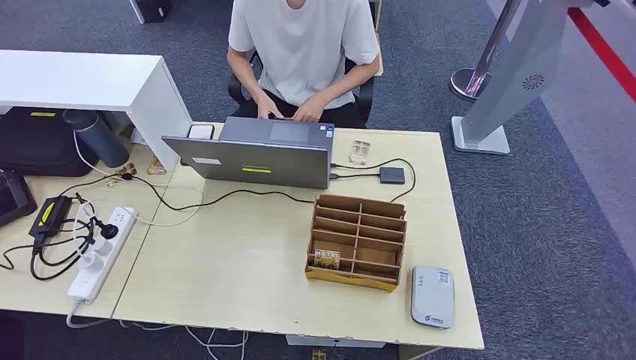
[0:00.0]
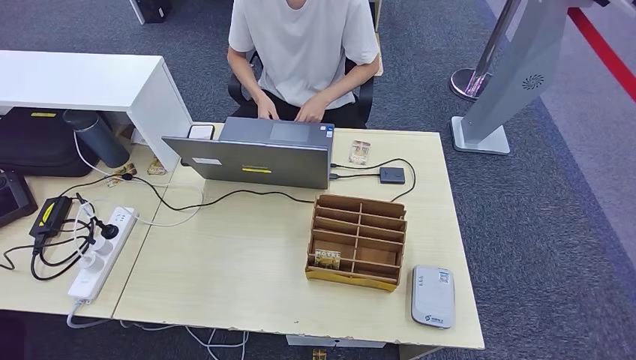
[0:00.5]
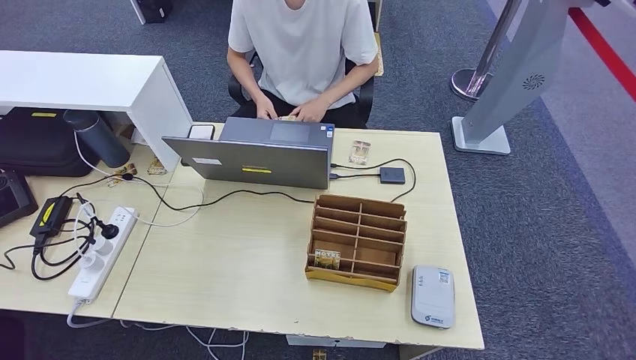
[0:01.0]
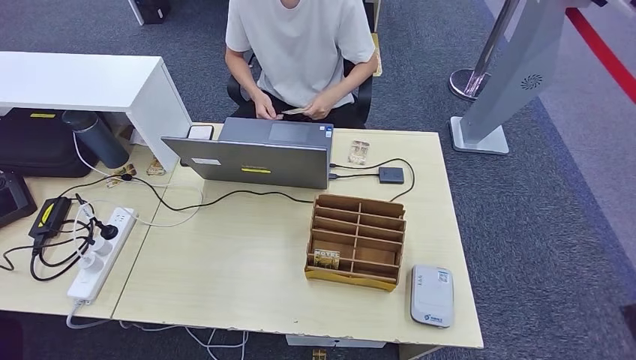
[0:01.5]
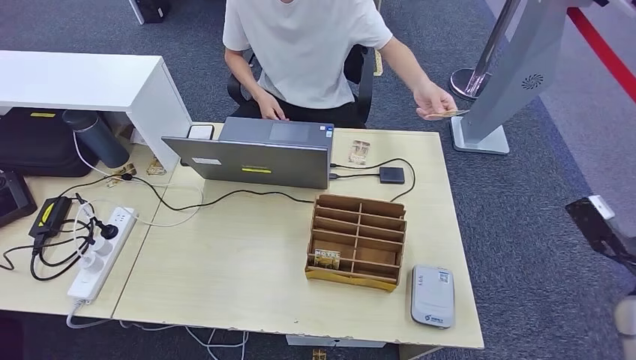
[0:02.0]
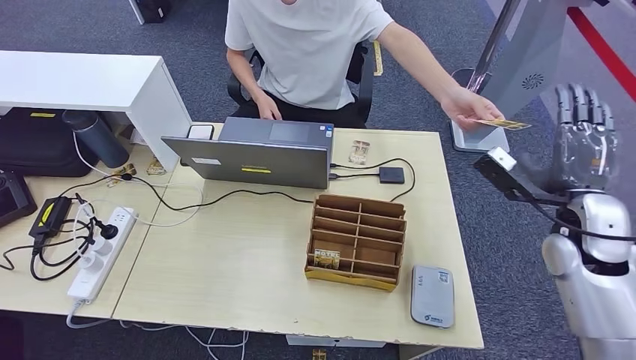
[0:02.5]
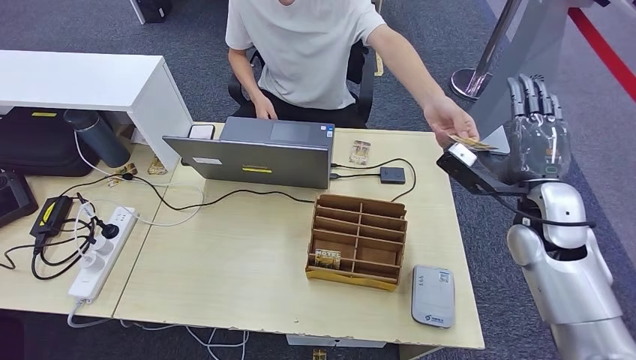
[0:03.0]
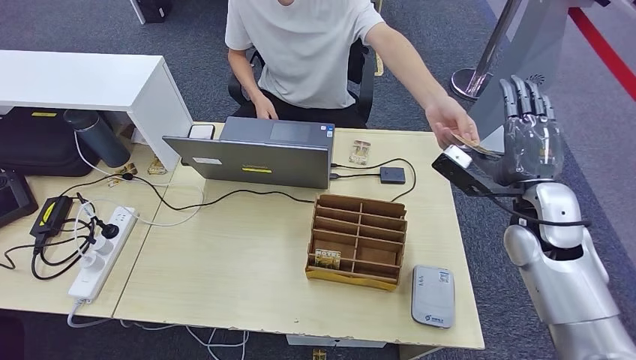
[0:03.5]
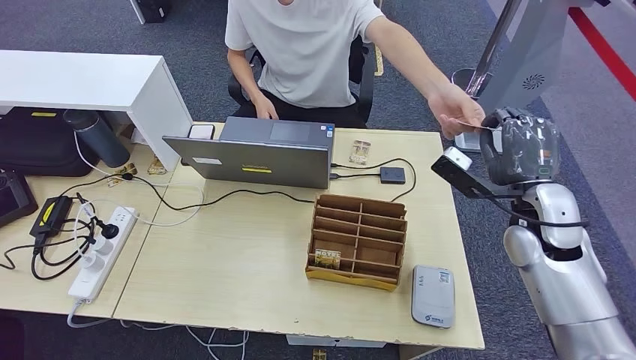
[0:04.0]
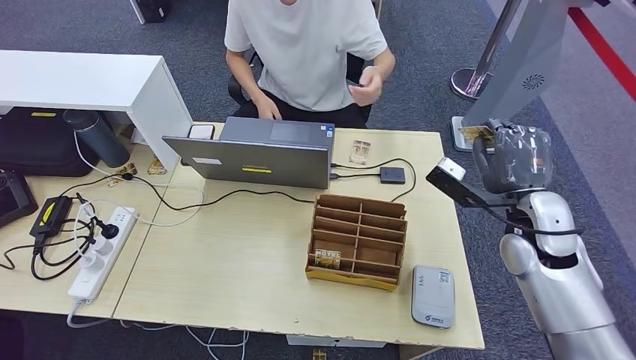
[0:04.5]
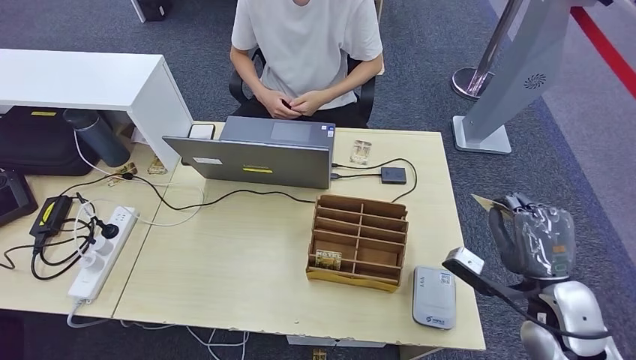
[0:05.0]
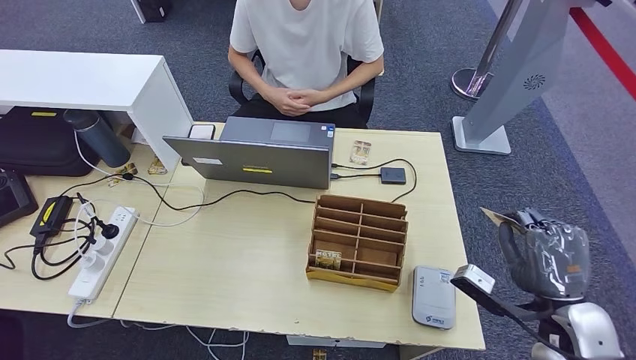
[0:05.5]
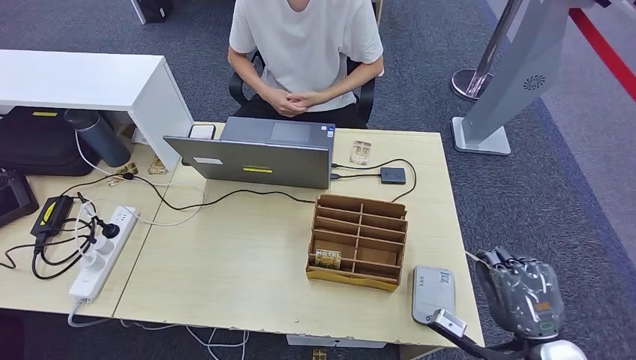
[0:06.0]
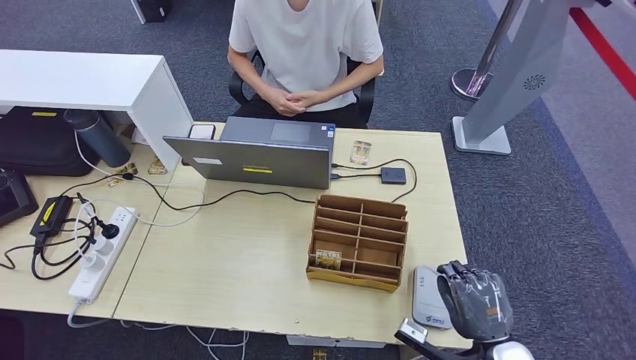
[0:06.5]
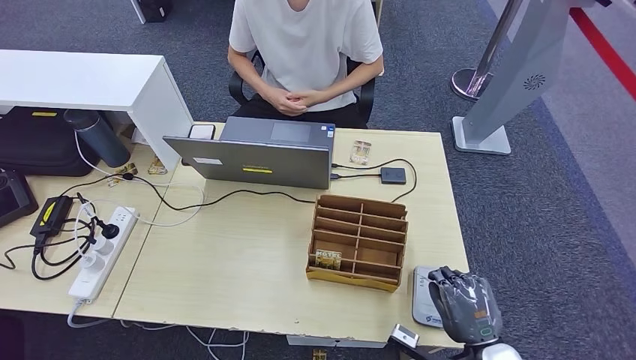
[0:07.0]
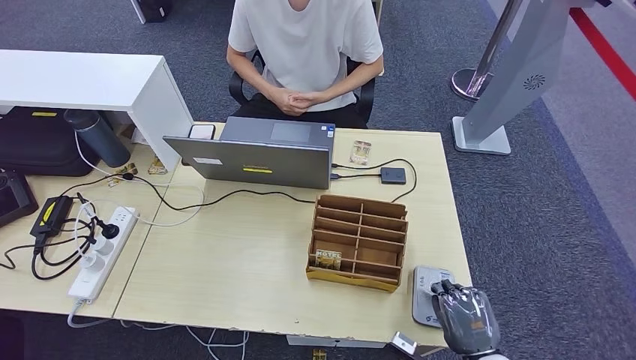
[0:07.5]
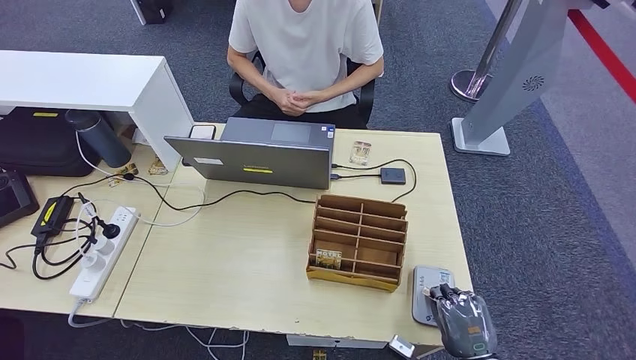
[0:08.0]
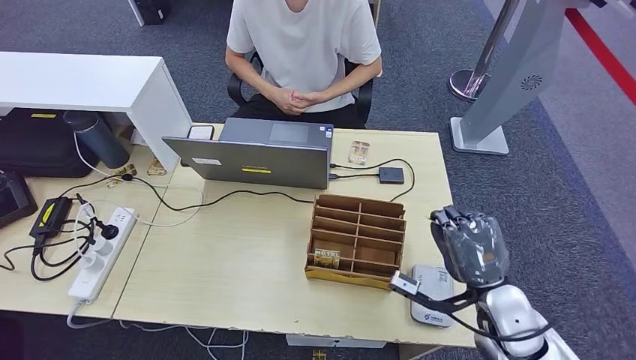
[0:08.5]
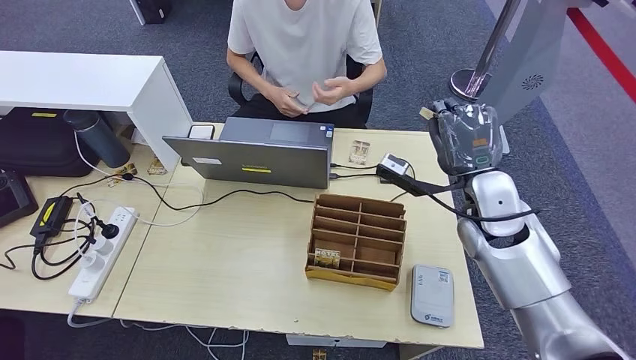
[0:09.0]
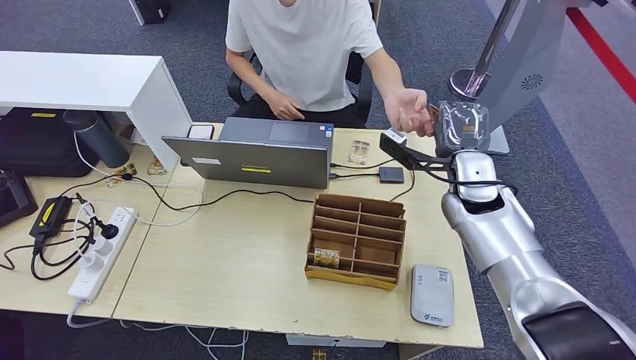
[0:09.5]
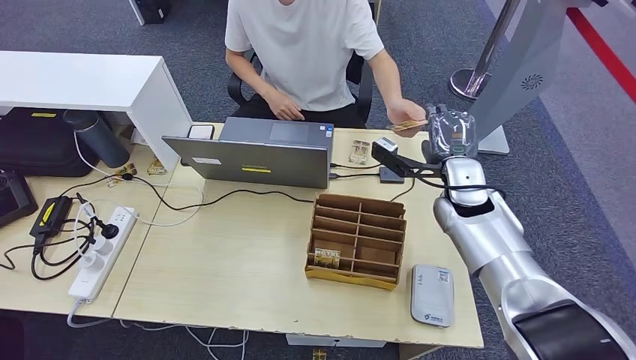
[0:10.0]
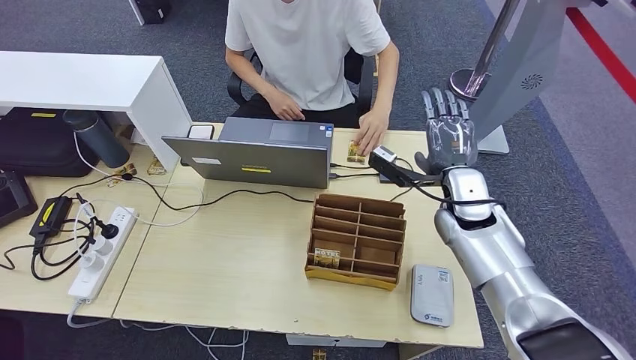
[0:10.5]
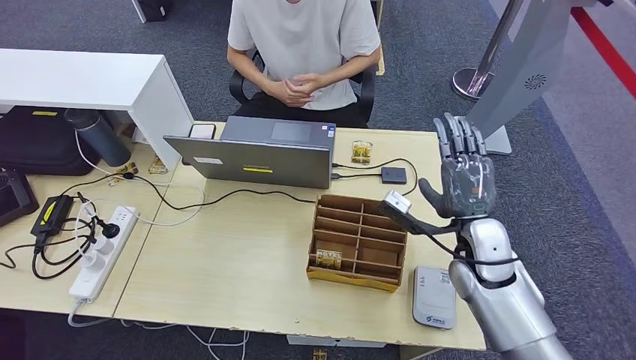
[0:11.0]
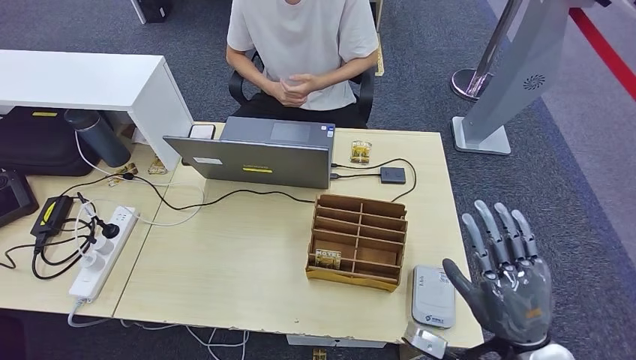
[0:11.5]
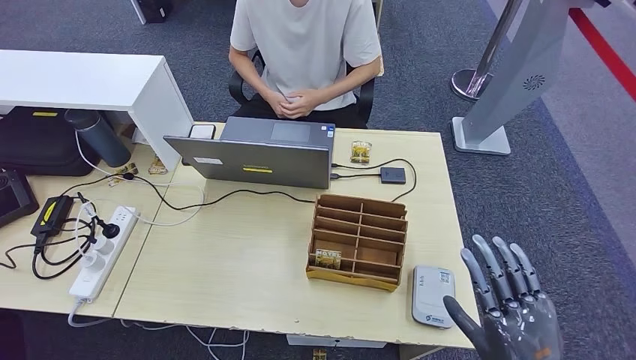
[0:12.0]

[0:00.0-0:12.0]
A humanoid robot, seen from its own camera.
Step, 0:00.0 to 0:03.5: Take the ID card from the person's hand.
Step, 0:04.0 to 0:08.0: Place the ID card on the card reader.
Step, 0:08.5 to 0:10.0: Hand the ID card to the person.
0:02.0 to 0:04.0: The right hand travels to the left and forward by about 20 cm.
0:04.0 to 0:06.0: The right hand is displaced backward and downward by approximately 20 cm.
0:06.0 to 0:08.0: The right hand heads downward, covering about 10 cm.
0:08.0 to 0:10.0: The right hand travels forward and upward by approximately 35 cm.
0:10.0 to 0:12.0: The right hand heads backward, covering approximately 30 cm.

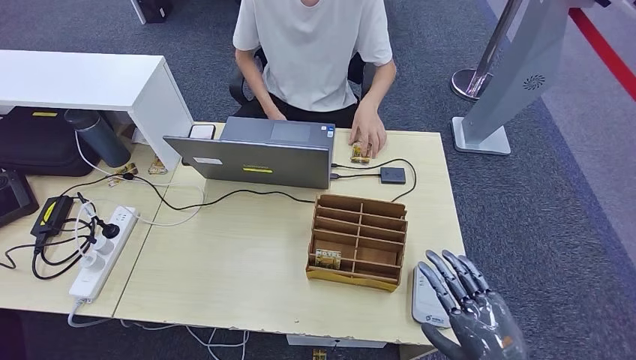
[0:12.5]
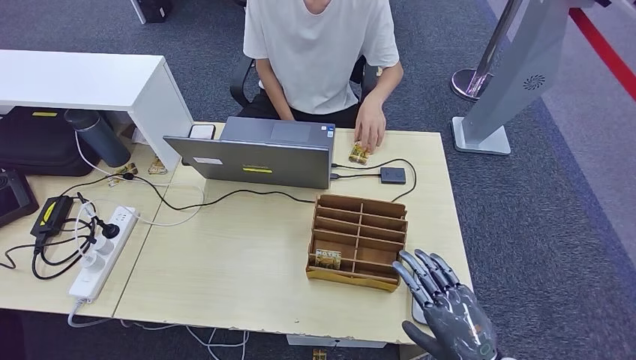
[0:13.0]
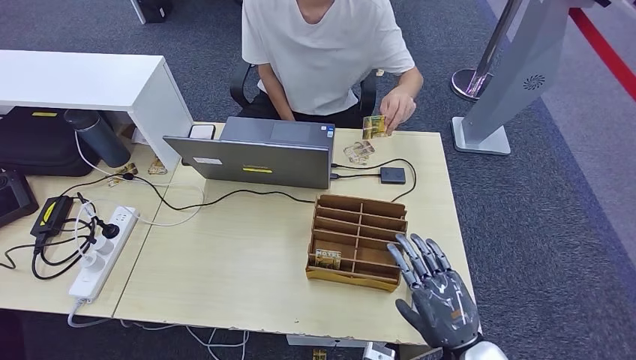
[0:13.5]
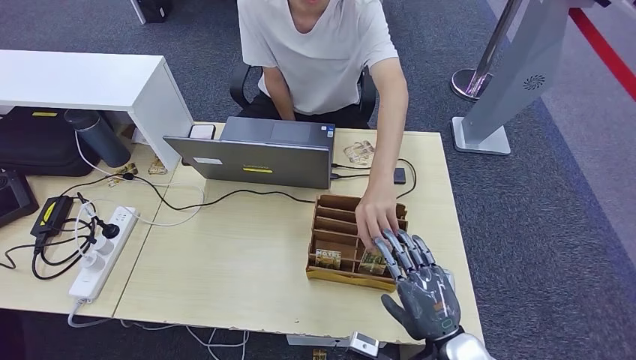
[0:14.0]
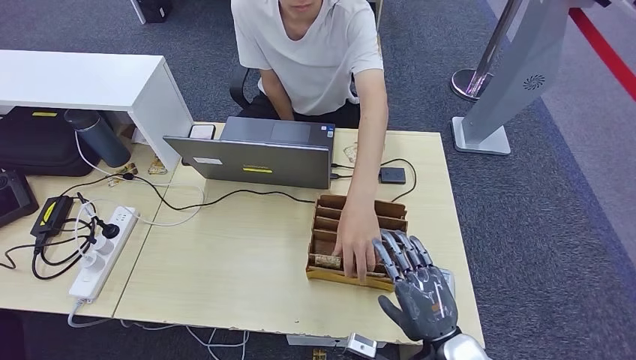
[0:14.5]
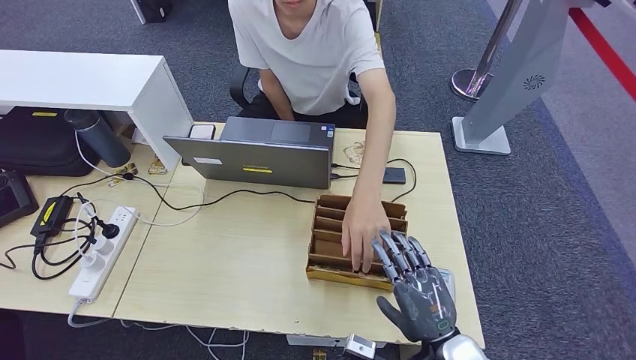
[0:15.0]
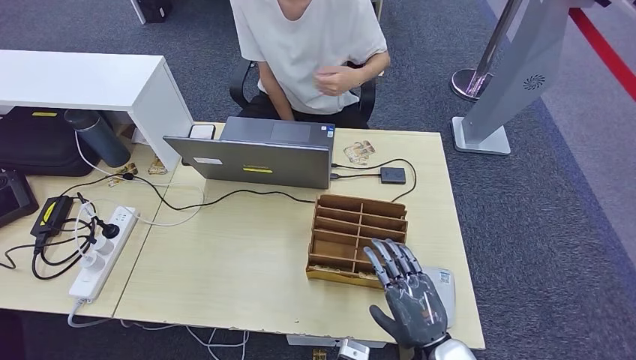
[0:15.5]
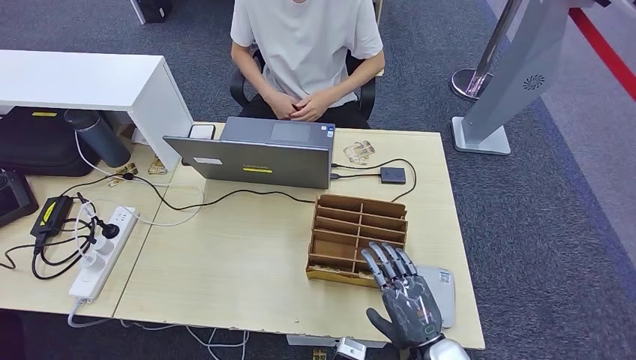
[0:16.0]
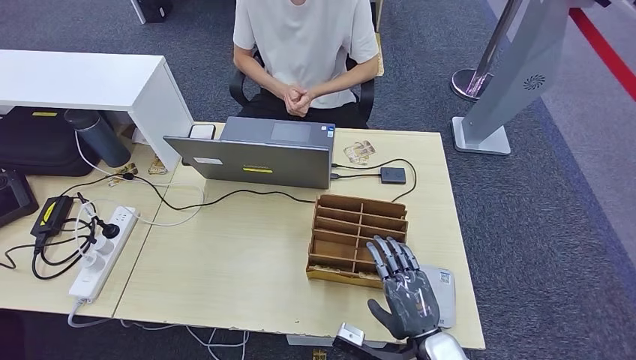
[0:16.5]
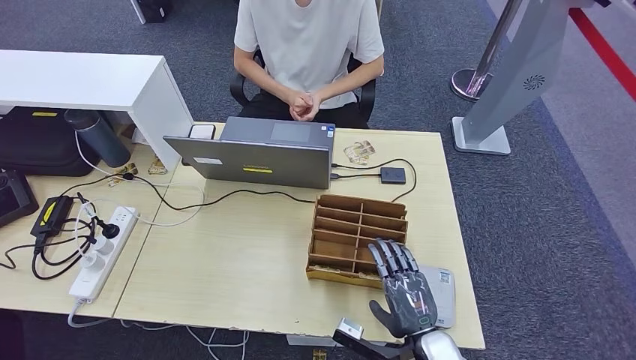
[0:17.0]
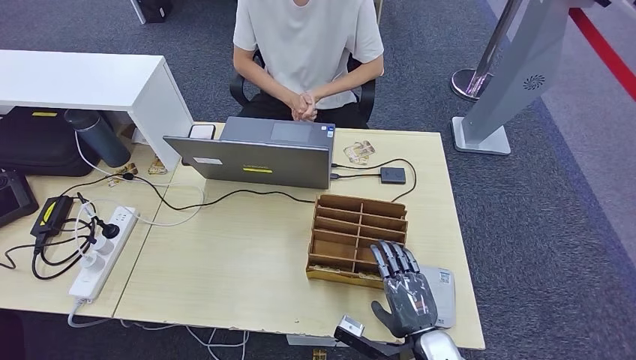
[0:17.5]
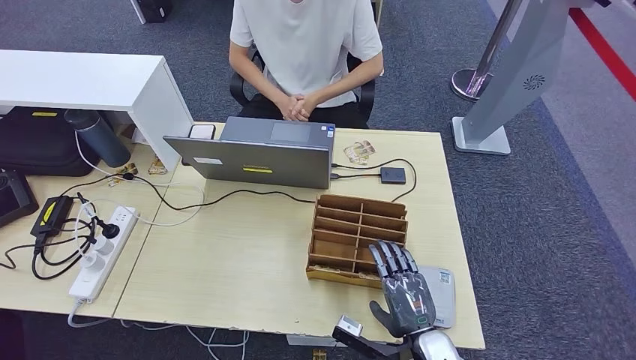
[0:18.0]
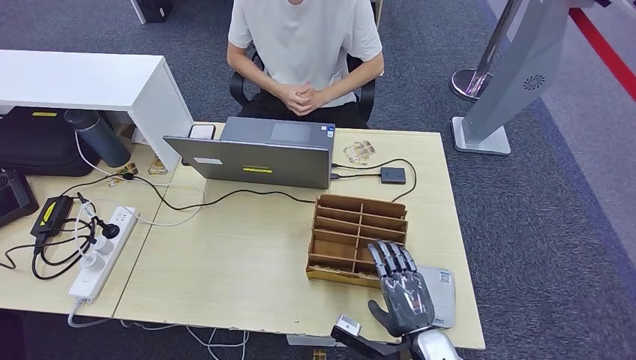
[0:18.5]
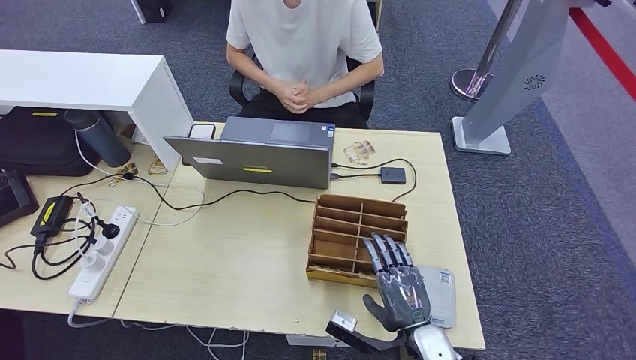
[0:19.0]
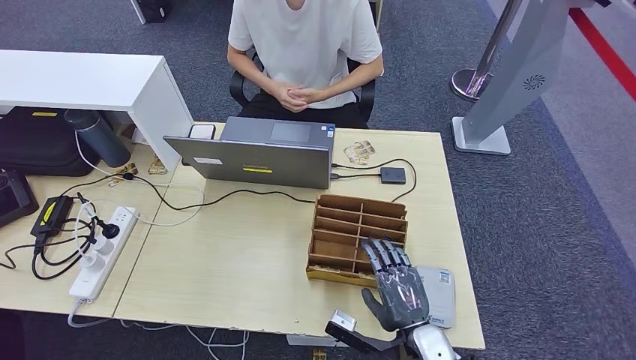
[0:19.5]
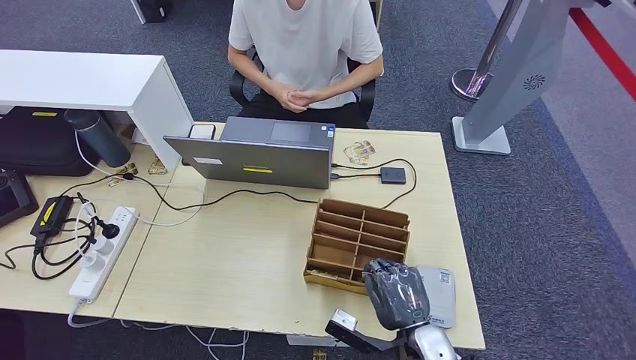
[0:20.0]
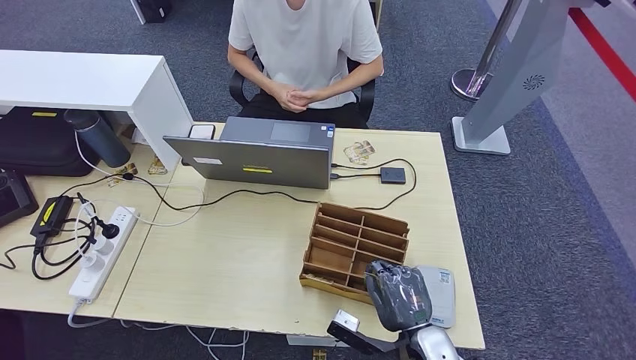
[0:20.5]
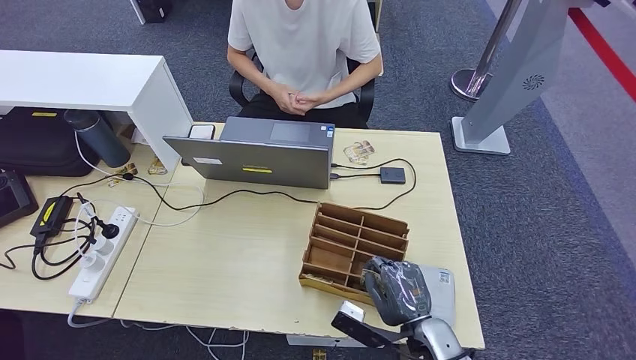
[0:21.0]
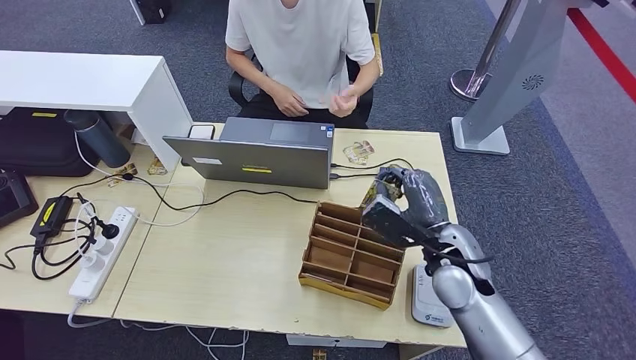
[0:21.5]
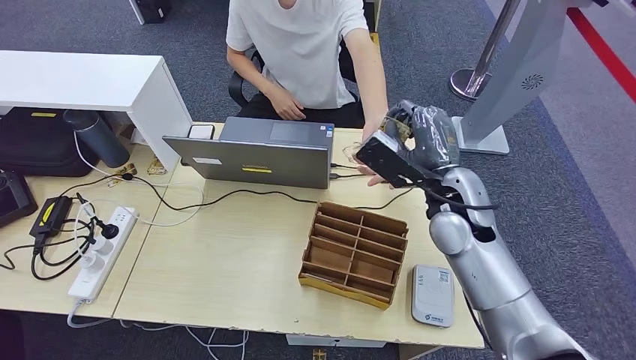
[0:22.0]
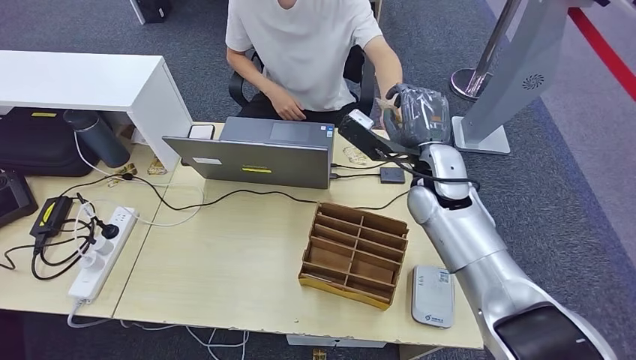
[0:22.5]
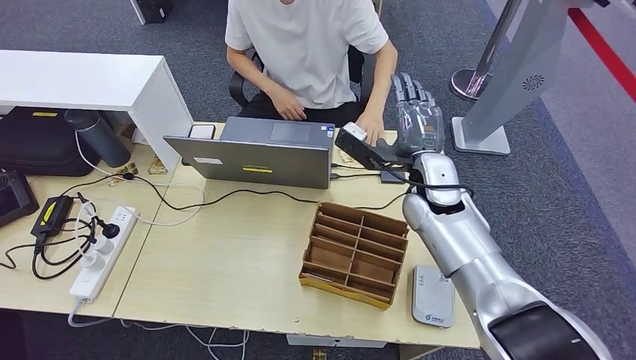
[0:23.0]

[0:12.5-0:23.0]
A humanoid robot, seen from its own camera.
Step, 0:12.5 to 0:20.0: Pick up the room key from the key card box.
Step, 0:20.5 to 0:23.0: Hand the room key to the person.
0:12.5 to 0:14.5: The right hand is displaced to the left and forward by approximately 10 cm.
0:14.5 to 0:16.5: The hands make only small movements.
0:16.5 to 0:21.0: The hands move only a little.
0:21.0 to 0:23.0: The right hand travels forward and upward by roughly 30 cm.
